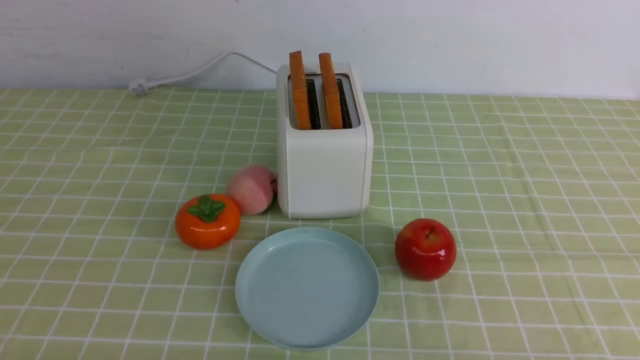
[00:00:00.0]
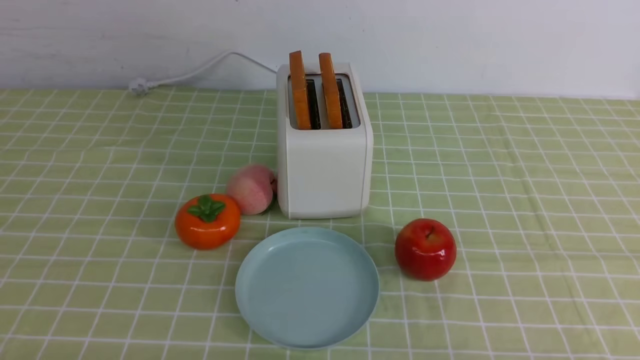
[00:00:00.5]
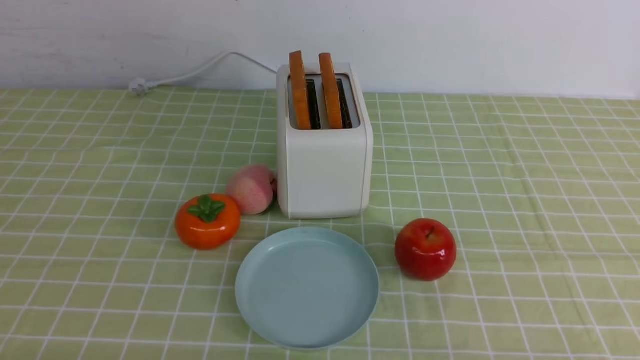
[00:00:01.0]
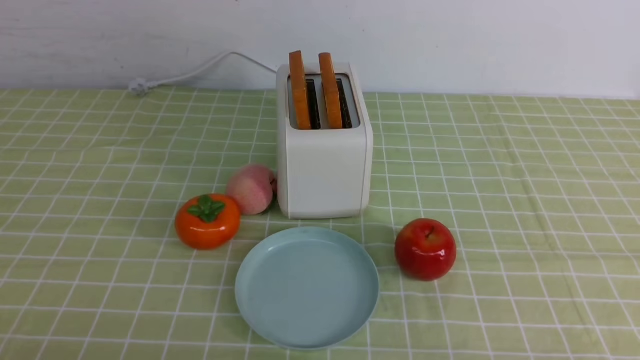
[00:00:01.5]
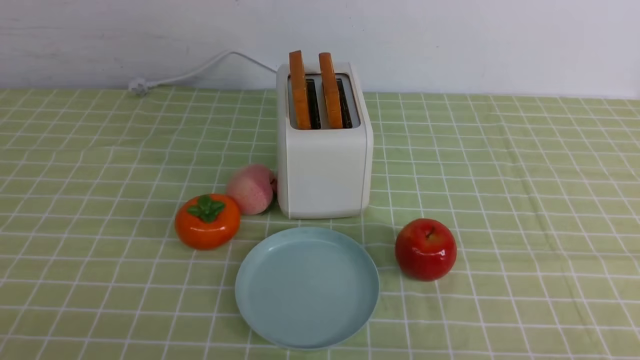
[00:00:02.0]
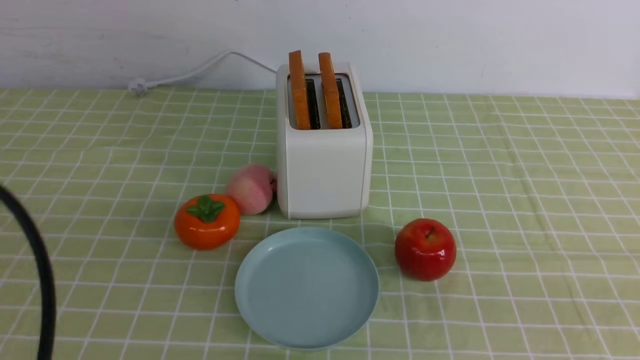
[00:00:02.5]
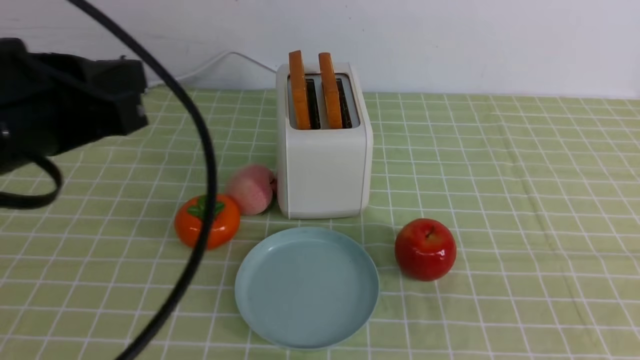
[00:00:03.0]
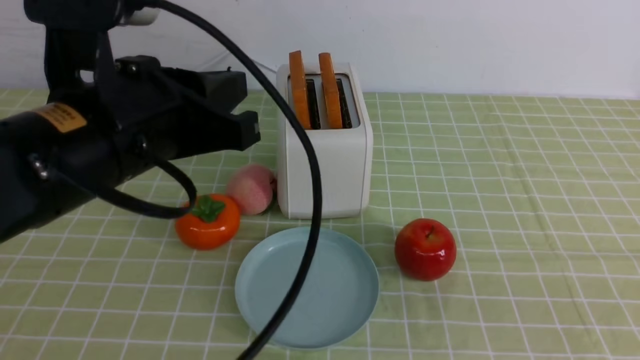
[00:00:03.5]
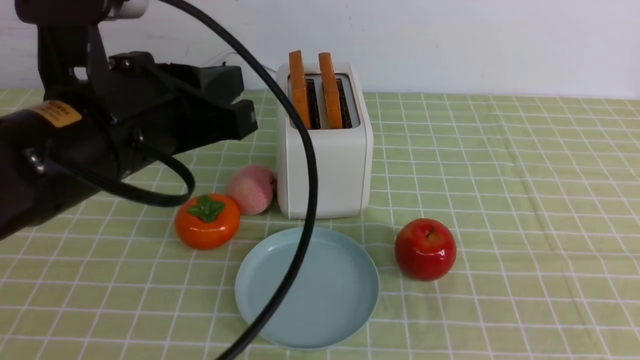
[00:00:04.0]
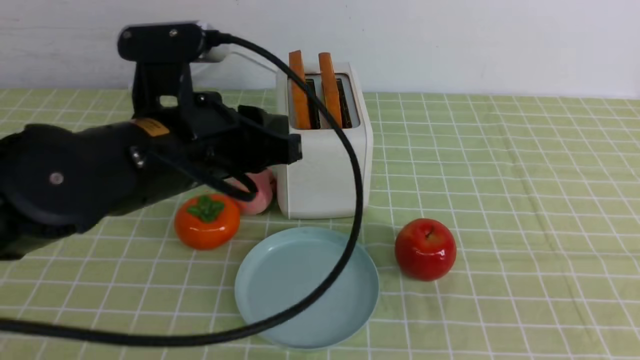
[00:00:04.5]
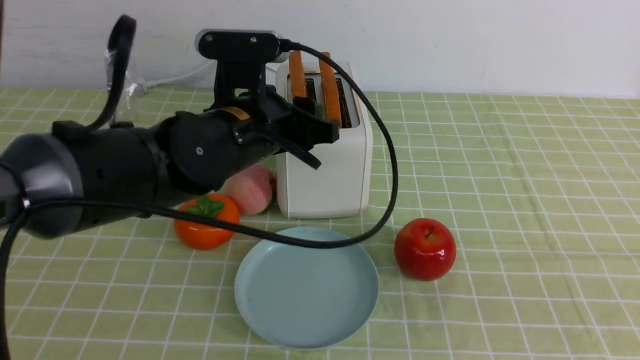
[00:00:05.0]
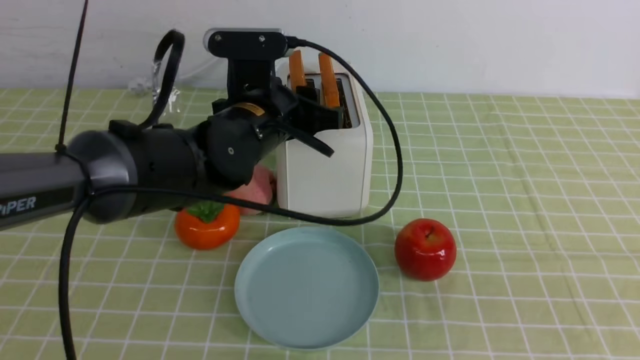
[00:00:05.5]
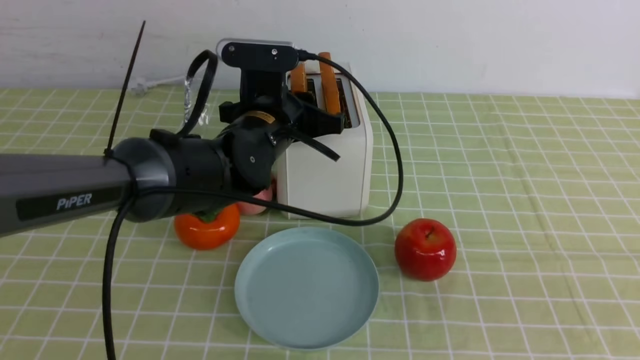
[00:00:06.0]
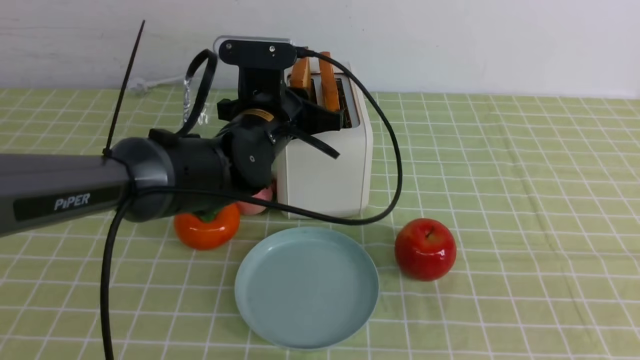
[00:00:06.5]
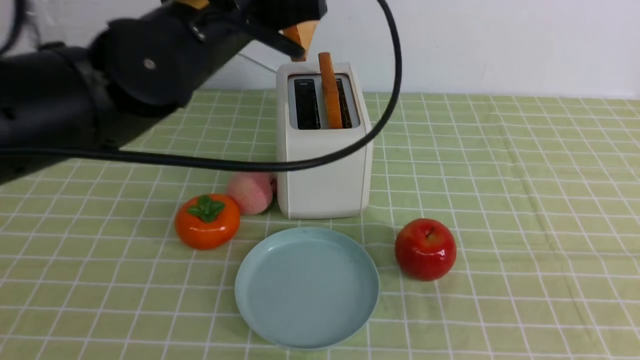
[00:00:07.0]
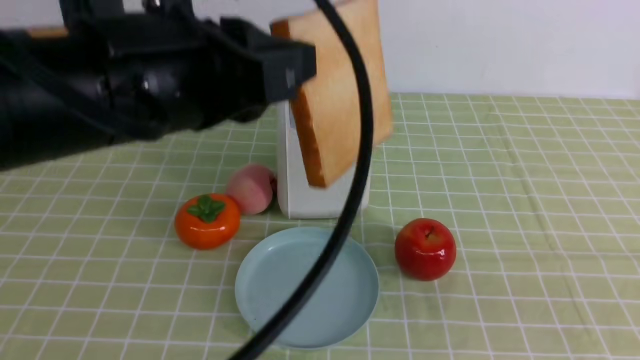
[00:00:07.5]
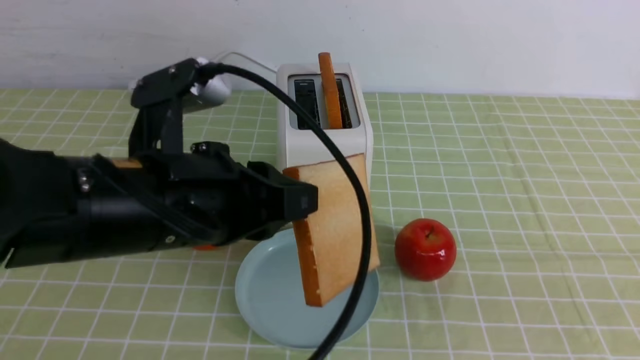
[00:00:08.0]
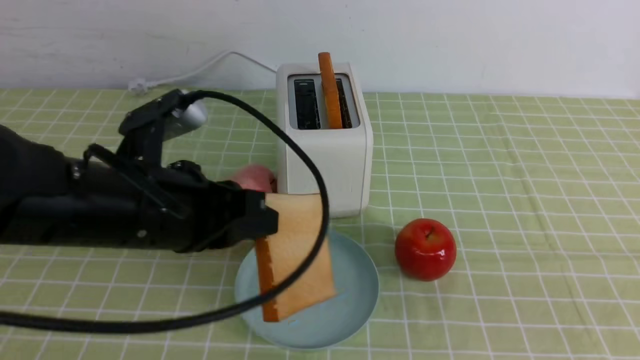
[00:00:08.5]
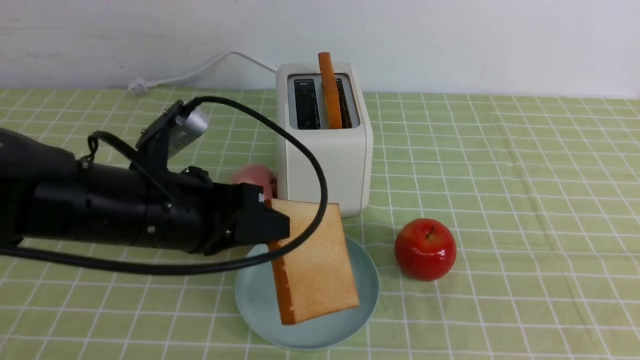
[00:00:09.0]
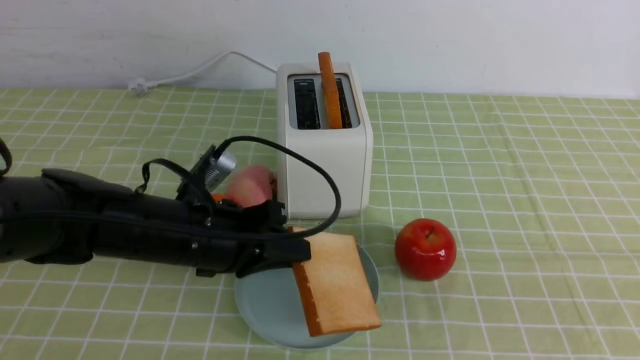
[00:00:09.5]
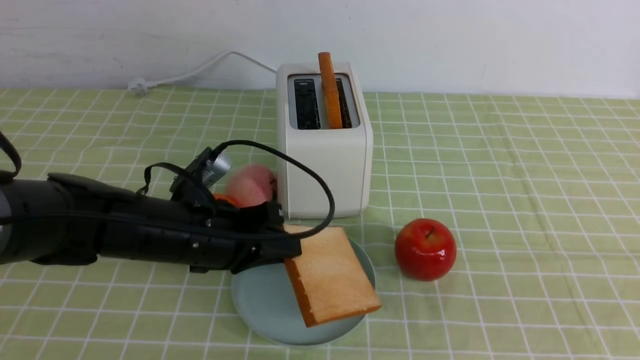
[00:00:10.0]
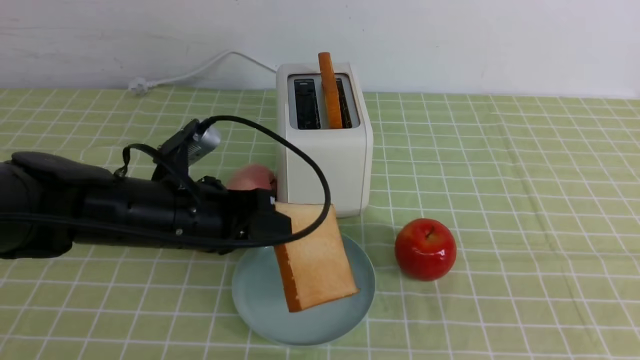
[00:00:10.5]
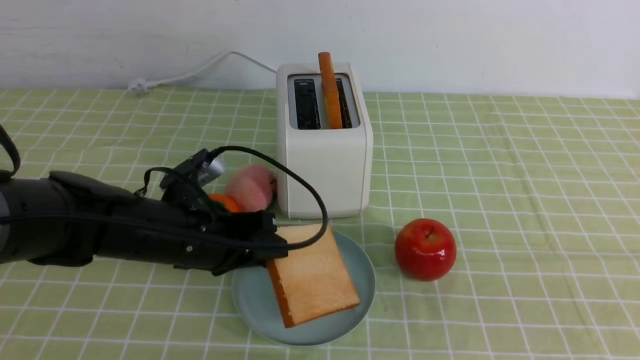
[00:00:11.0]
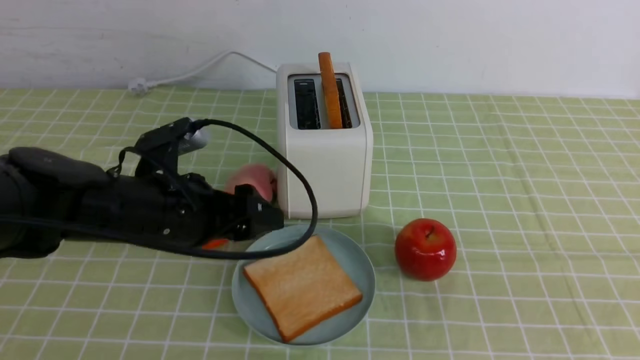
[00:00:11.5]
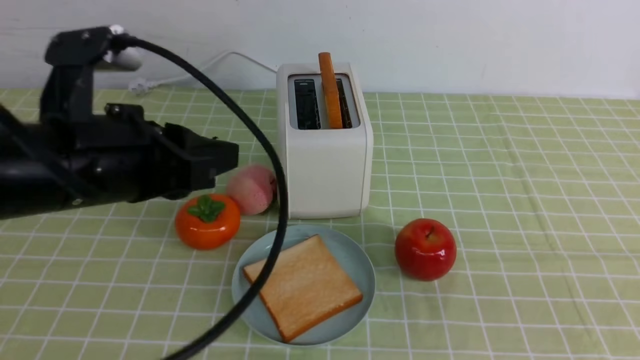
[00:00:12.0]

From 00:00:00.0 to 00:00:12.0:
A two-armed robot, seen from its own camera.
Task of the whole recording: take toasted bread from bread machine on green coffee tablecloth place on plate.
Step, from 00:00:00.0 to 00:00:07.0: use the left arm to take out a slice of bread.
Step, from 00:00:07.5 to 00:00:11.5: use the left arm to put a slice of bread into the empty plate.
From 00:00:02.0 to 00:00:04.0: The left gripper goes about 25 cm forward, to the right and upward, while the right gripper heads upward, covering approximately 10 cm, and closes.
From 00:00:04.0 to 00:00:06.0: The left gripper travels forward, downward and to the right by approximately 20 cm, and opens up.
From 00:00:06.0 to 00:00:08.0: The left gripper heads backward, covering approximately 20 cm.
From 00:00:08.0 to 00:00:10.0: The left gripper moves downward and forward, some 15 cm.
From 00:00:10.0 to 00:00:12.0: The left gripper goes roughly 15 cm upward and backward, and opens, then closes again.

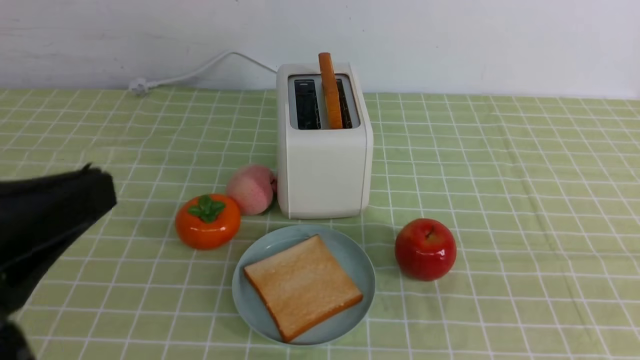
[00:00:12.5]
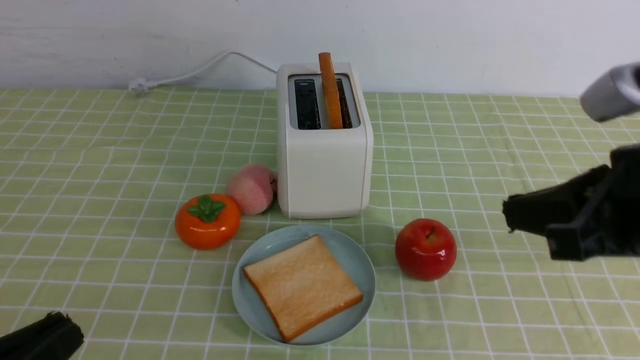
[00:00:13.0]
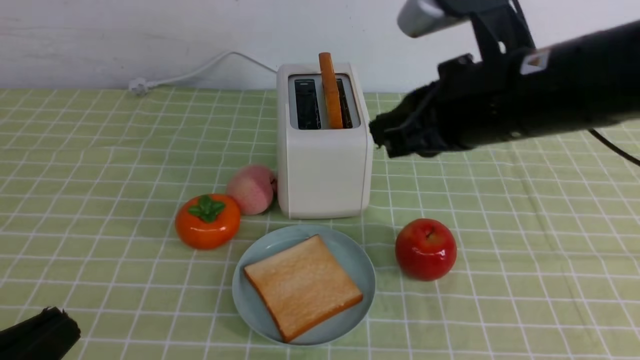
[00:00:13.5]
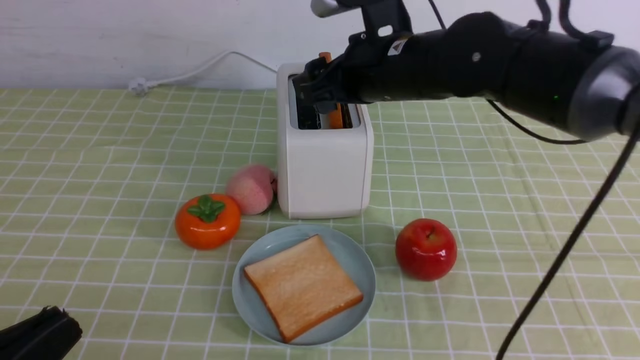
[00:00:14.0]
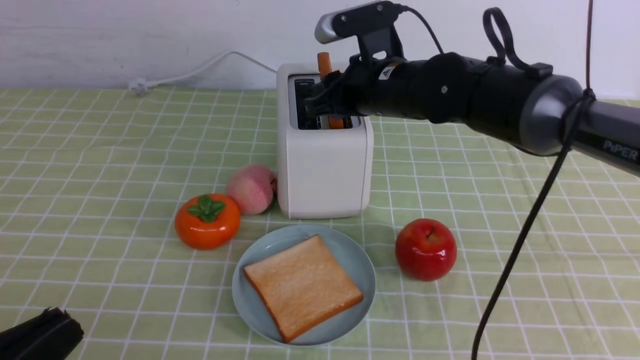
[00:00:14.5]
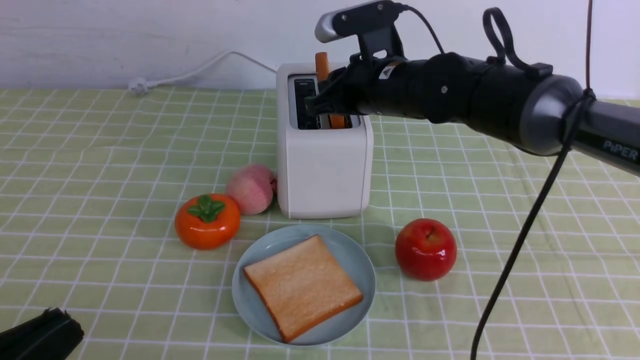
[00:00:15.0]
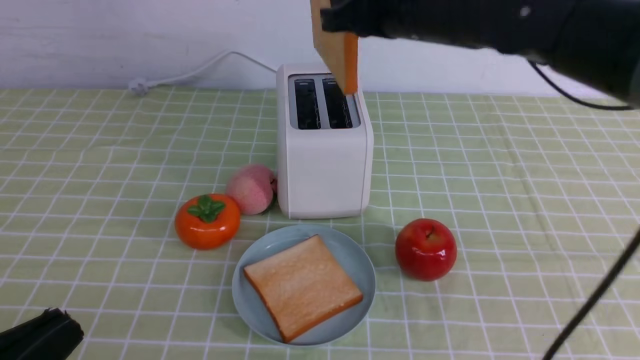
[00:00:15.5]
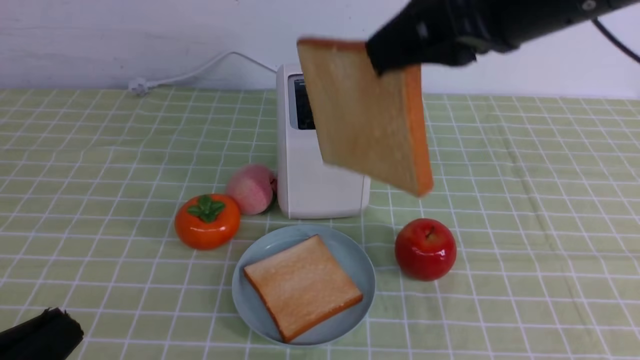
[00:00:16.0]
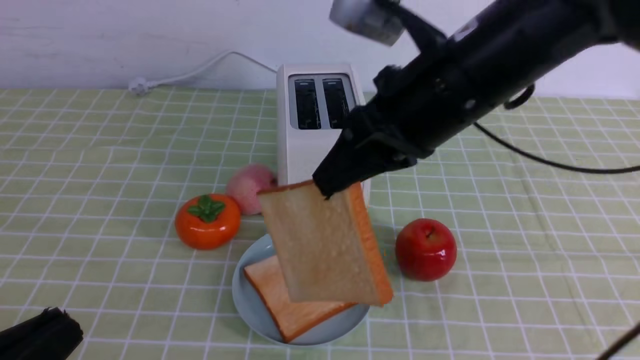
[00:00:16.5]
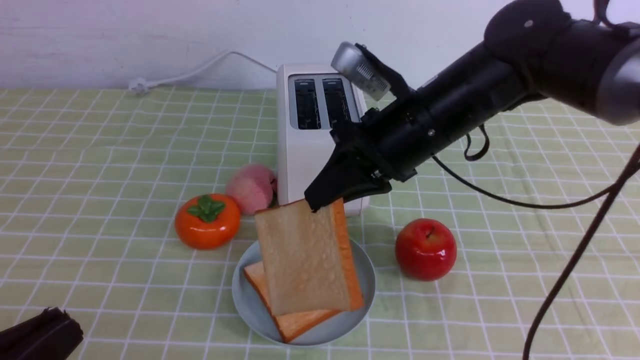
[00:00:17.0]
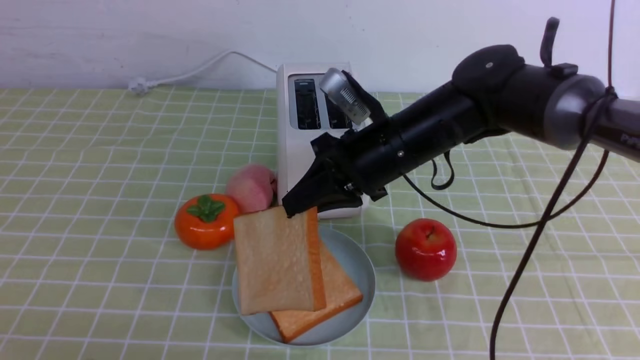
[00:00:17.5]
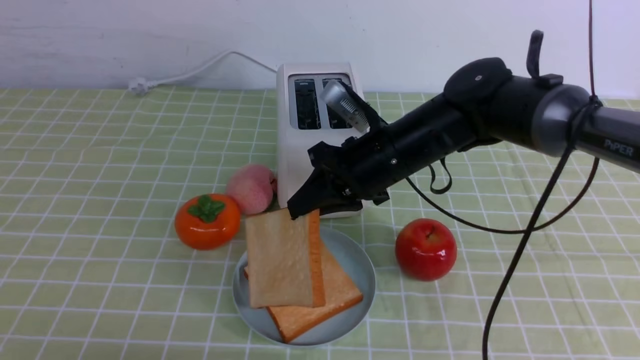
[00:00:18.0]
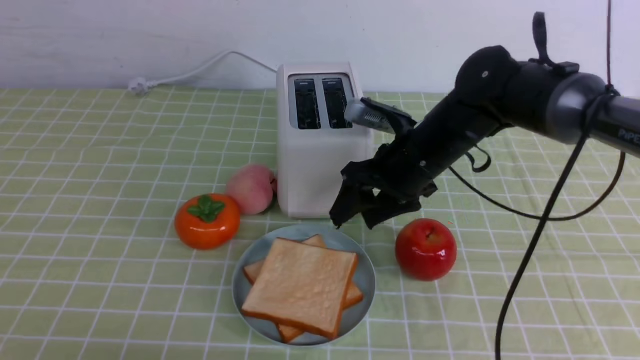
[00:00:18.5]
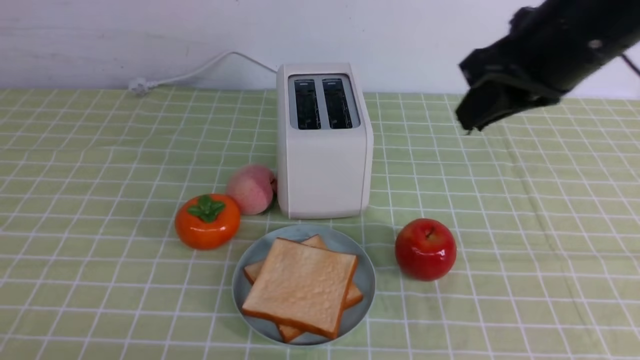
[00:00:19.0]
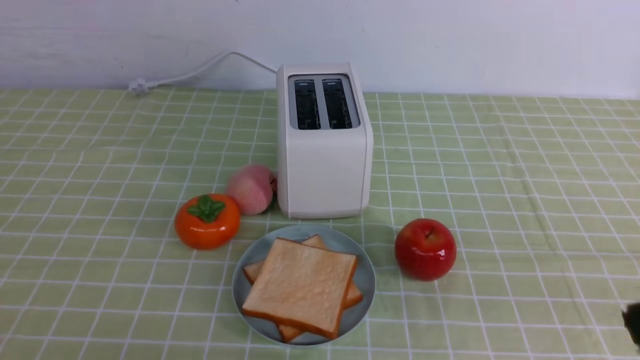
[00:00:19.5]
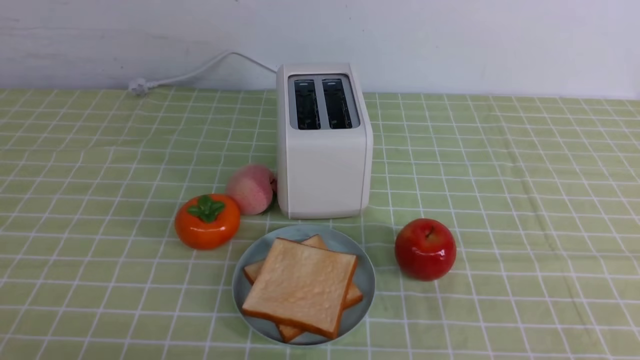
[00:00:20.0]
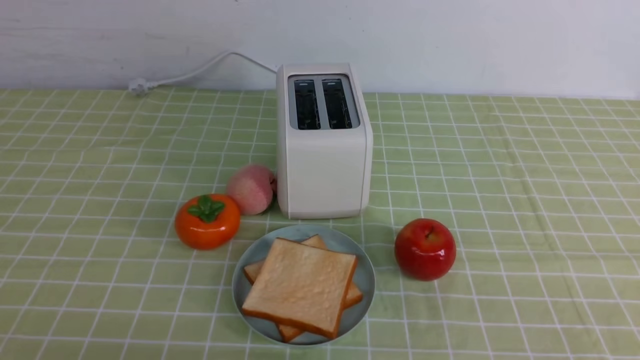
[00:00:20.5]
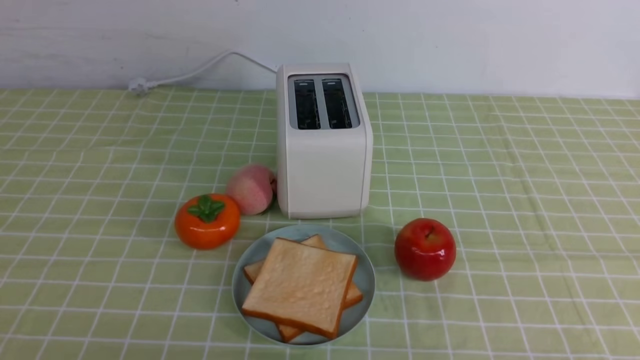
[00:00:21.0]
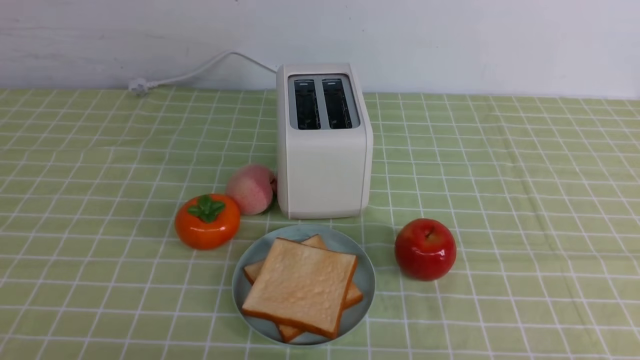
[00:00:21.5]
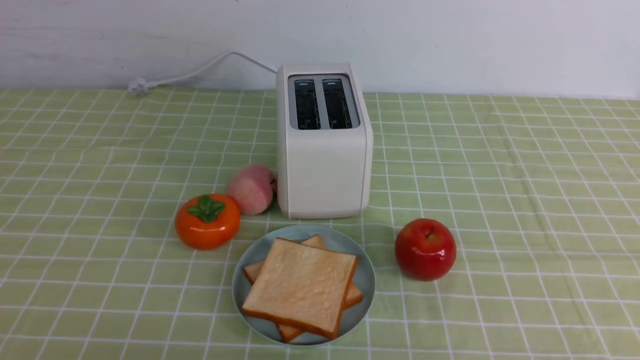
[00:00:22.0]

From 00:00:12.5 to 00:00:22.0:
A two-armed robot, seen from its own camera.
Task of the whole recording: take toasted bread from bread machine on green coffee tablecloth place on plate.
Step, from 00:00:12.5 to 00:00:15.5: use the right arm to take out a slice of bread.
Step, from 00:00:16.0 to 00:00:18.5: use the right arm to put a slice of bread into the plate.
From 00:00:12.5 to 00:00:14.5: The left gripper heads downward, covering about 5 cm, while the right gripper moves forward and to the left, approximately 40 cm, and opens.
From 00:00:14.5 to 00:00:16.5: The right gripper is displaced backward and upward by some 15 cm, and closes up.
From 00:00:16.5 to 00:00:18.0: The right gripper shifts roughly 15 cm downward and forward.
From 00:00:18.0 to 00:00:20.0: The right gripper goes roughly 40 cm backward and to the right, and opens and closes again.
